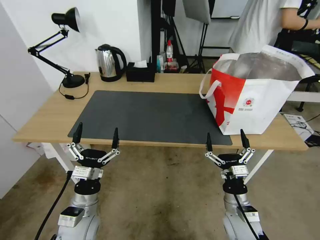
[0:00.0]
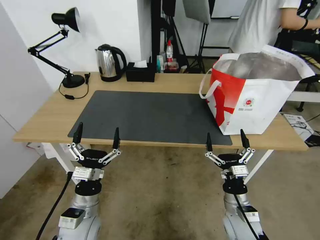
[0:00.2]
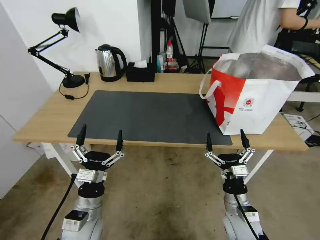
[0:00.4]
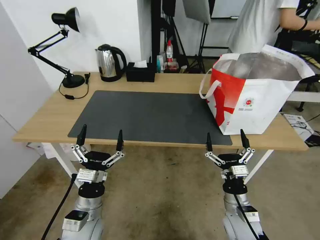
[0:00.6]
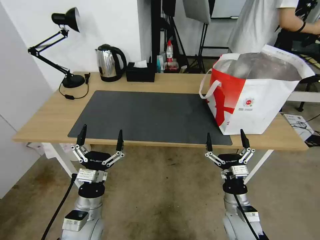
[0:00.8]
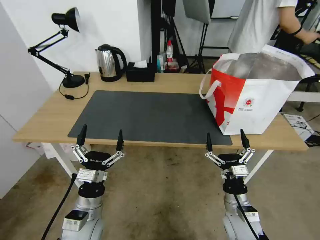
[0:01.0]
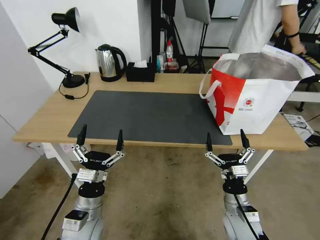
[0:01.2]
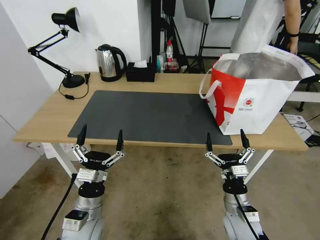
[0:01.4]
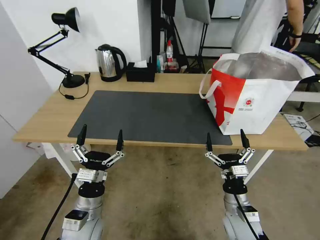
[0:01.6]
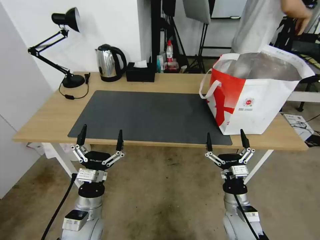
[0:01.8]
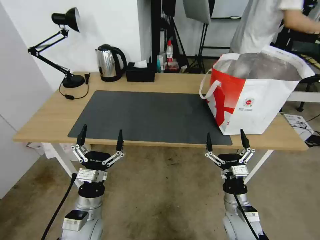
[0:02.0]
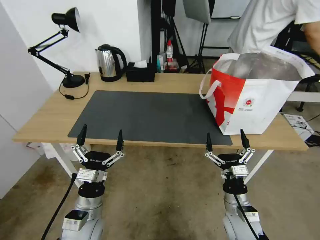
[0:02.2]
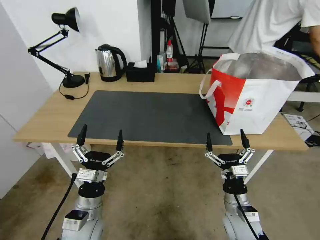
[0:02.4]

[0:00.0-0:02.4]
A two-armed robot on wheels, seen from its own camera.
Task of the whole recording: Pick up the trash from the table and place it into the takeout bag.
0:00.0 to 0:01.2: There are only small adjustments of the grippers.
0:01.2 to 0:02.4: Both grippers stay about where they are.
